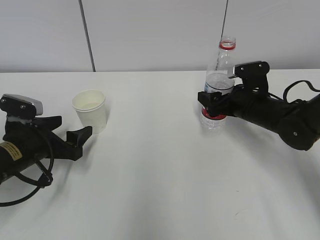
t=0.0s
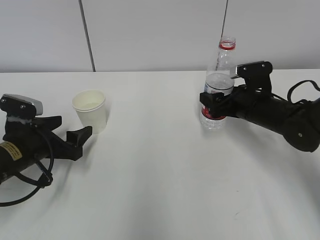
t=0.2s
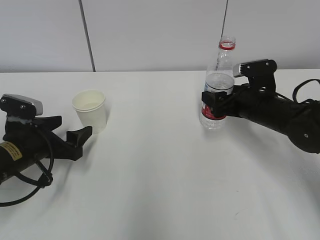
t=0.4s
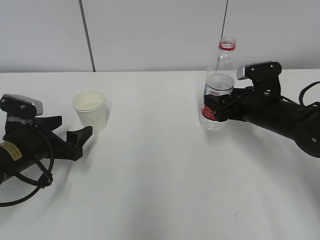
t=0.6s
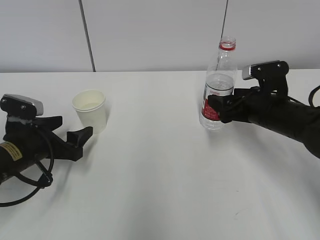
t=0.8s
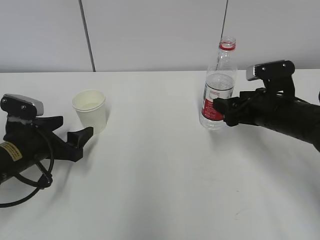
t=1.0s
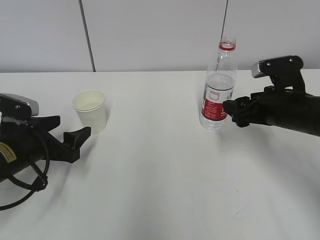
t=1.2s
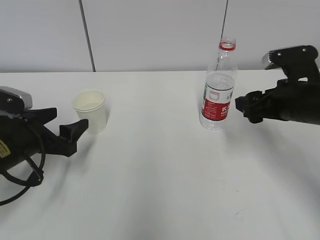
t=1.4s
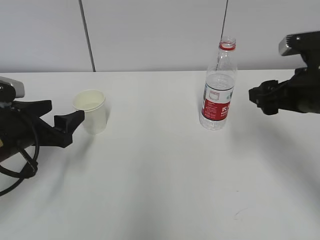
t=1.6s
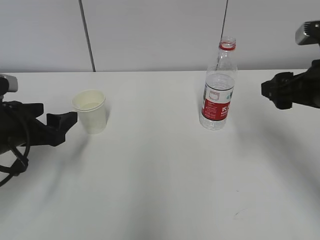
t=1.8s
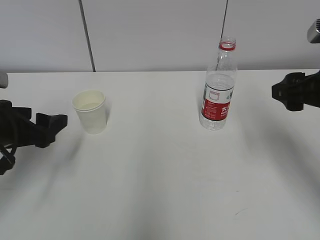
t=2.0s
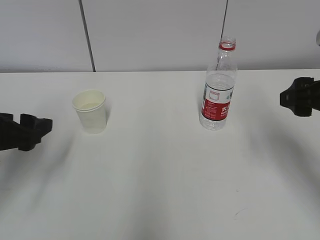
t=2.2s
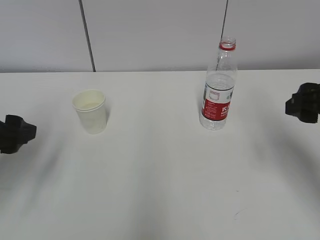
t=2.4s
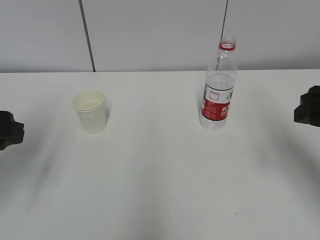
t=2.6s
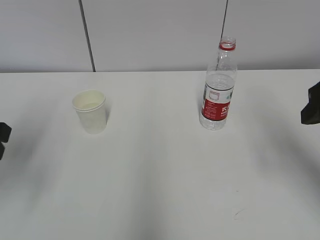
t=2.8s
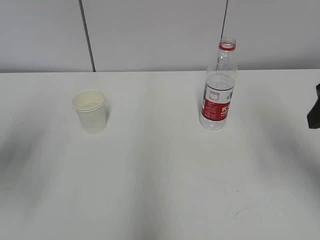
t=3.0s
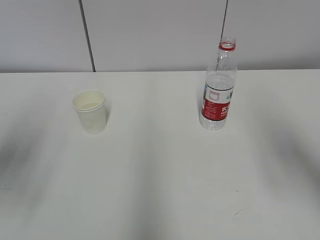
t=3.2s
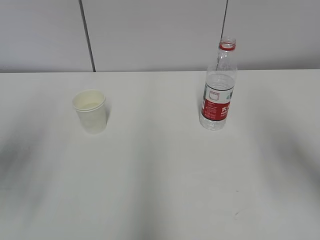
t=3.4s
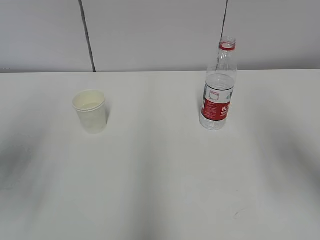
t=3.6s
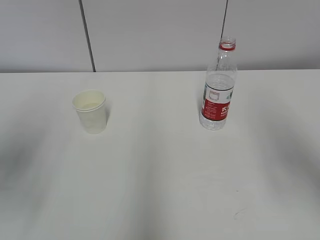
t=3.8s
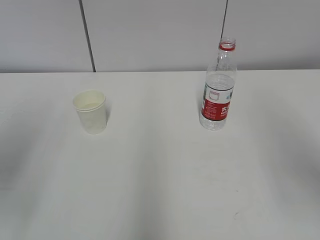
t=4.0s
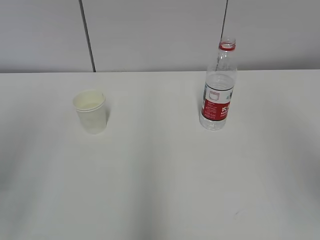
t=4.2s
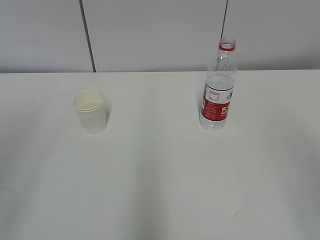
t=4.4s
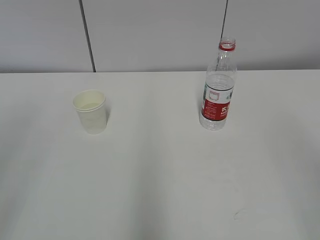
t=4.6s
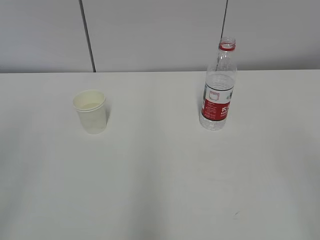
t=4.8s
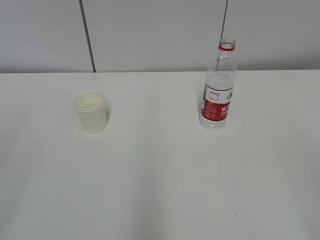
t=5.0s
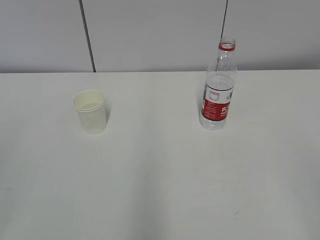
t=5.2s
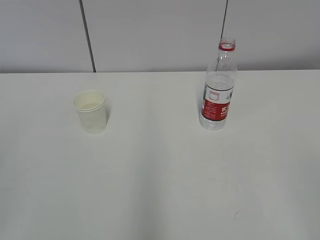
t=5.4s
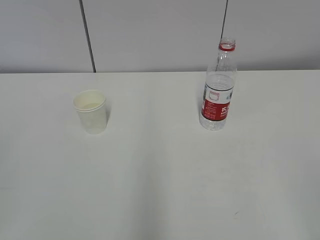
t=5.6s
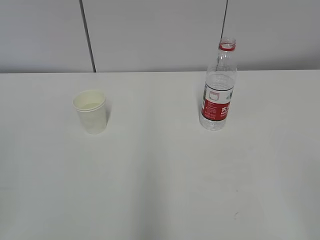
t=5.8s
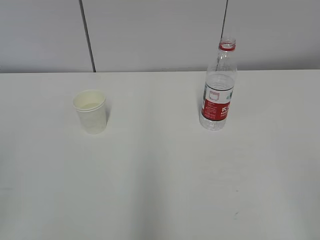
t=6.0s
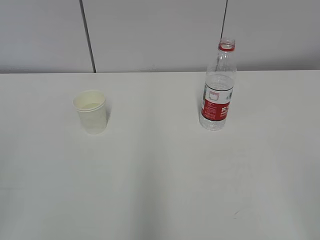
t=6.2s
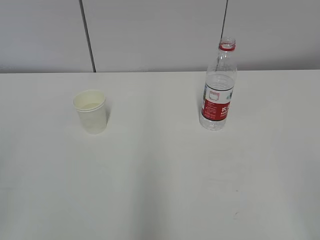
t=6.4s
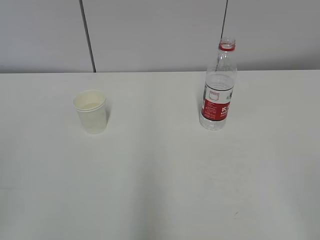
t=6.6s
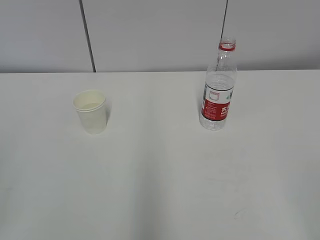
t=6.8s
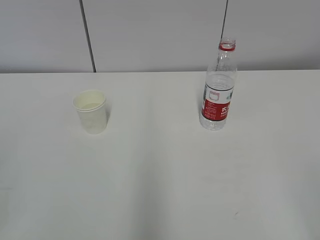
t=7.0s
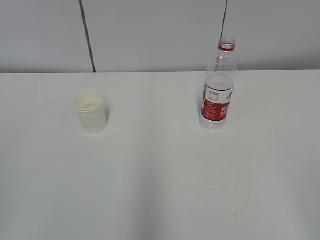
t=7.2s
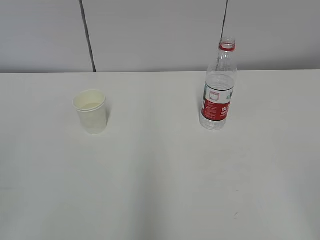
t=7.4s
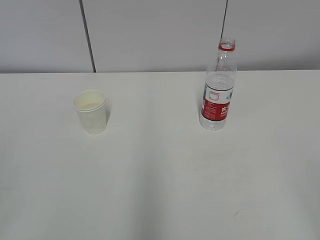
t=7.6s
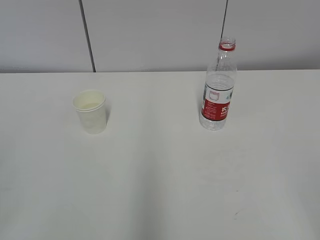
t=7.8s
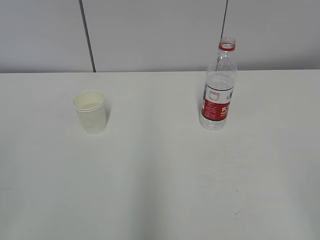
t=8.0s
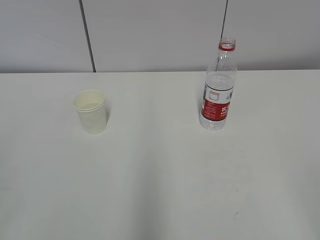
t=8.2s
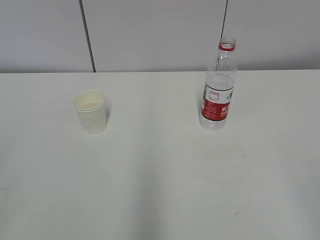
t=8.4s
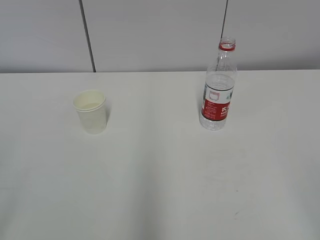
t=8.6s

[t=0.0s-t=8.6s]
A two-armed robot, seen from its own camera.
t=0.0s to t=1.4s: The right gripper is displaced backward and upward by roughly 10 cm.
t=1.4s to t=2.8s: The two grippers go approximately 15 cm upward and backward.
t=2.8s to t=4.4s: Both grippers travel together backward and upward, some 15 cm.

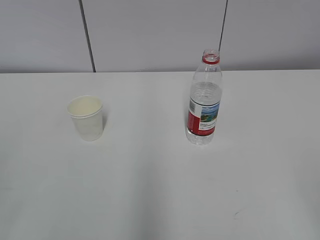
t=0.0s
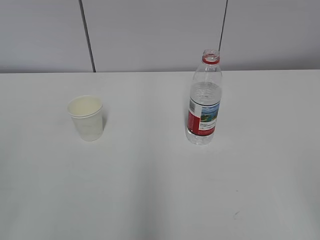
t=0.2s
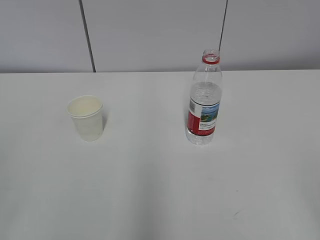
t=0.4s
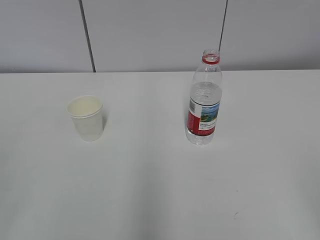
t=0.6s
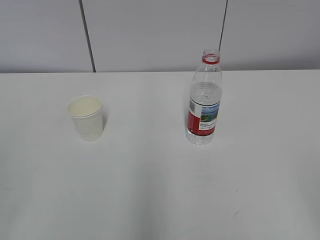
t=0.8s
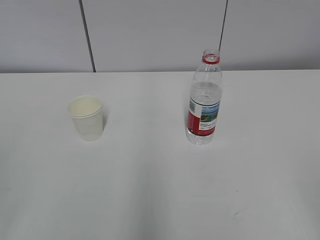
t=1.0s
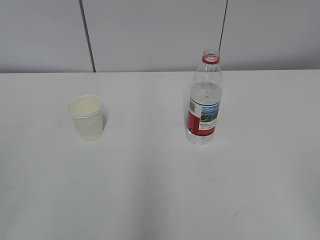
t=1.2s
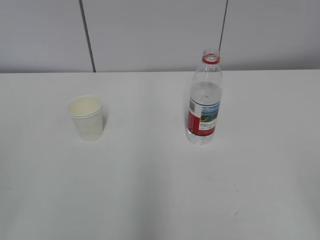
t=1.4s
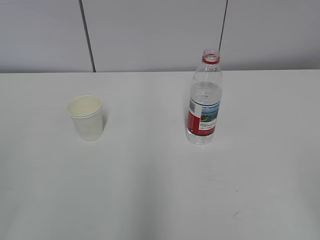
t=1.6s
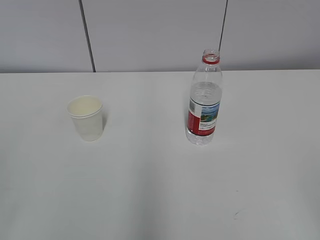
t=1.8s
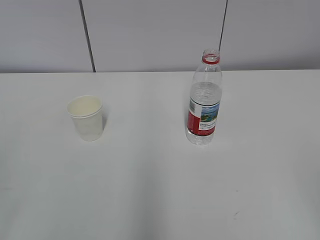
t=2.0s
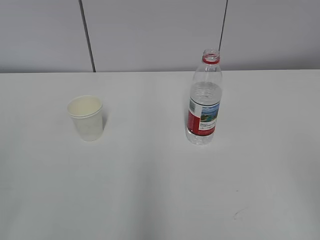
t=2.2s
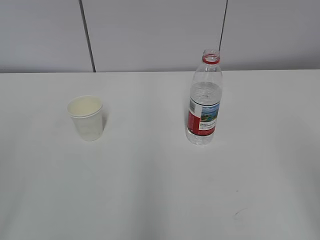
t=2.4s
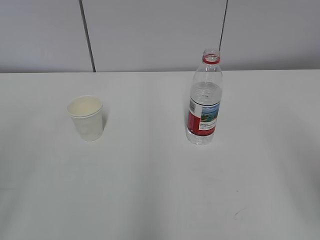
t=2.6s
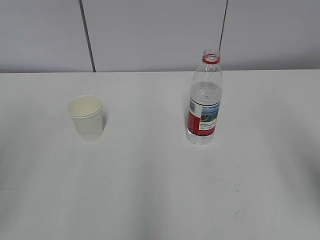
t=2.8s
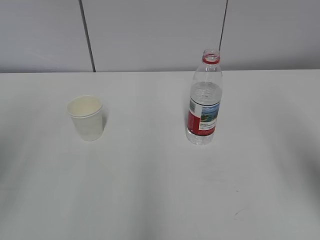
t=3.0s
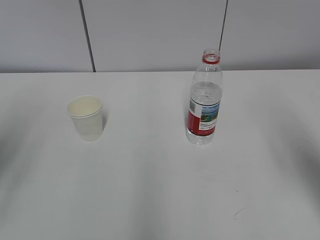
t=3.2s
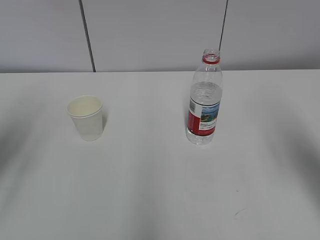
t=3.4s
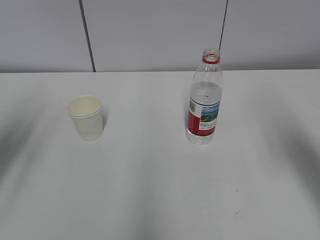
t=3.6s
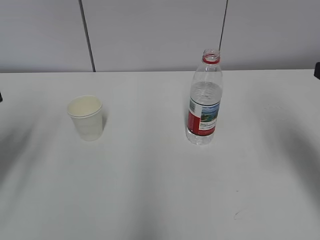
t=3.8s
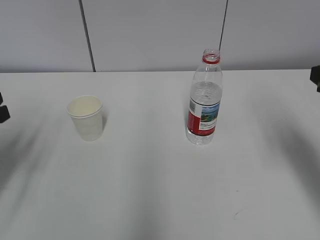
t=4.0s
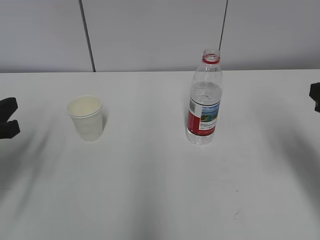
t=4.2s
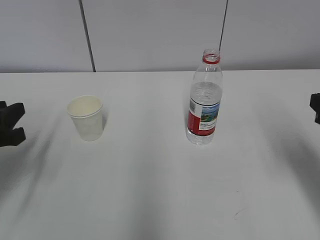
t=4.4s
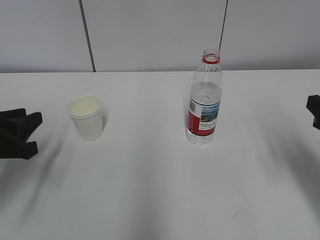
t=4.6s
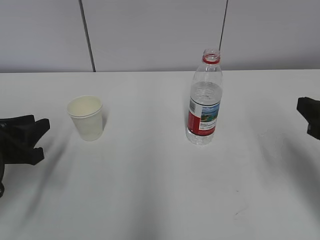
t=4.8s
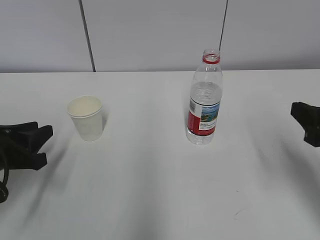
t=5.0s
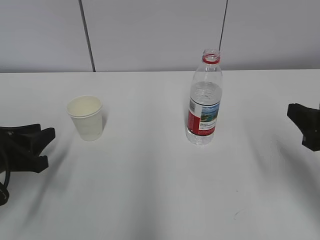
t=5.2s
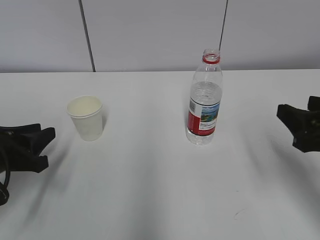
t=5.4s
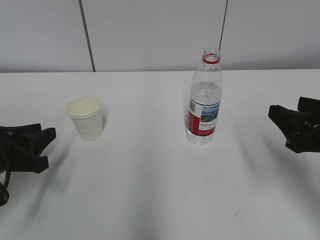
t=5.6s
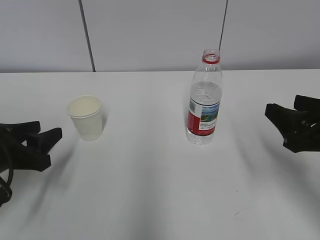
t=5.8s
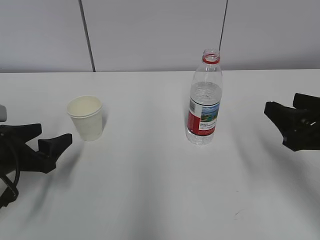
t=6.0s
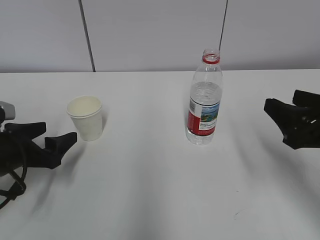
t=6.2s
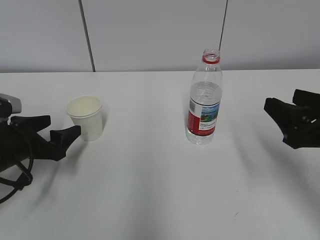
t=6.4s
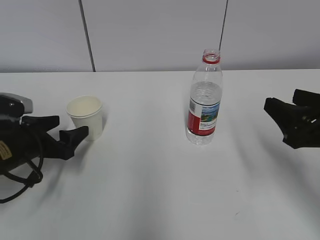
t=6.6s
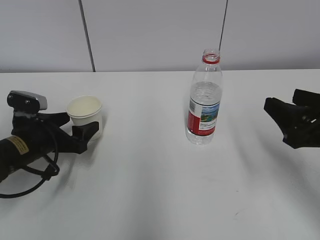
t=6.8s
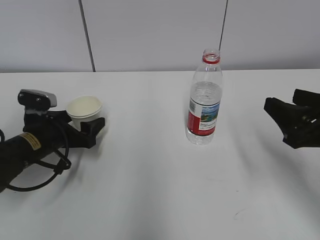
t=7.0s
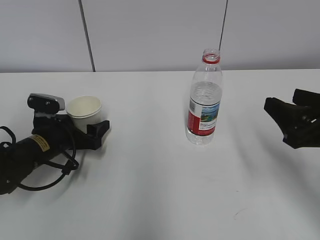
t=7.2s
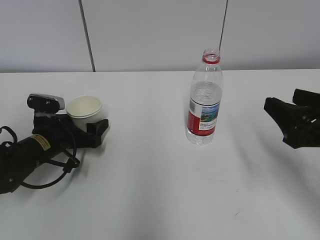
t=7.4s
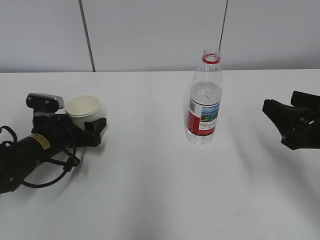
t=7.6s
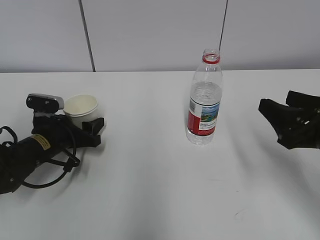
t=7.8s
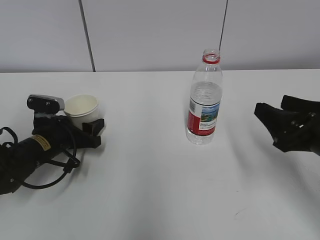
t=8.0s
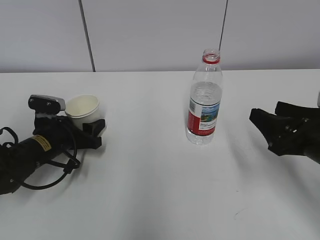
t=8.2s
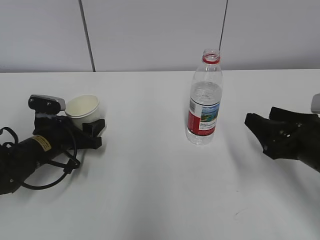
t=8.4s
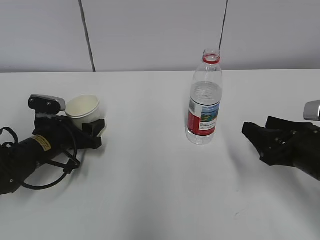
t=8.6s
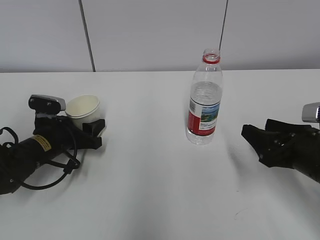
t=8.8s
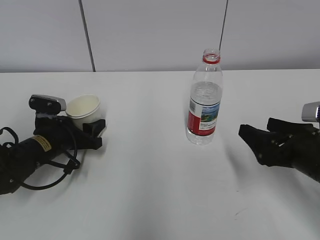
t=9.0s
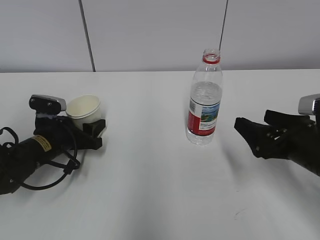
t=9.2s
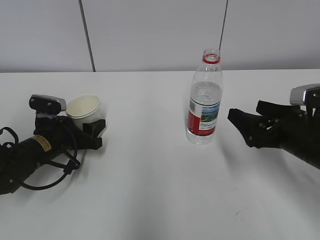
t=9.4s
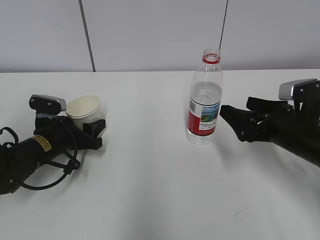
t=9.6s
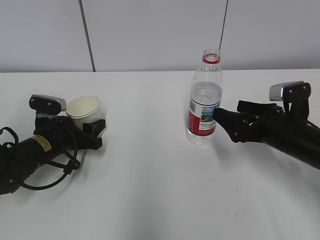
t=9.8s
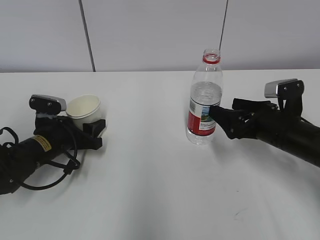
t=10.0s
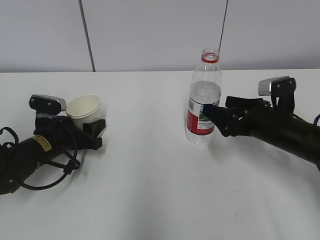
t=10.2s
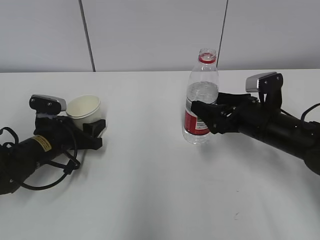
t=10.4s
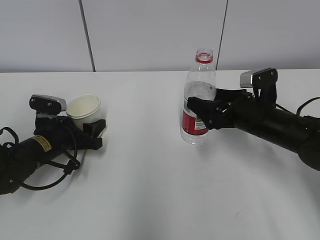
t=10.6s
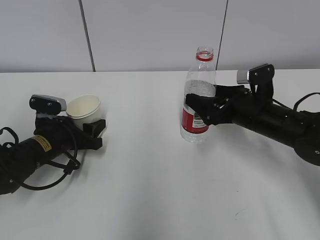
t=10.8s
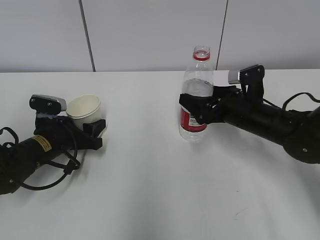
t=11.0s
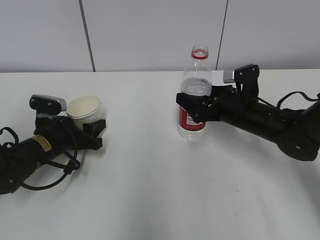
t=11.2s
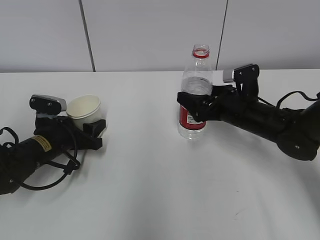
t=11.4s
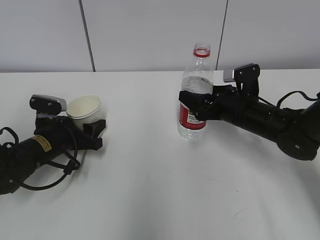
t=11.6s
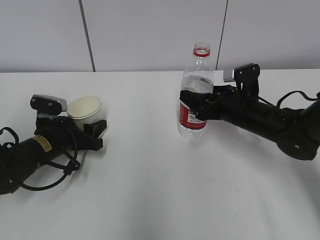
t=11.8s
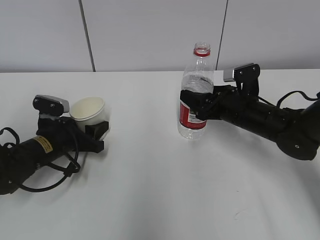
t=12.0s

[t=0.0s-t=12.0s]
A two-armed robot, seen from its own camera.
Step, t=0.0s to t=10.4s: Grab the water bottle with the right hand.
t=1.6s to t=3.0s: The right gripper goes about 15 cm forward.
t=3.0s to t=4.4s: Both grippers move downward and forward, roughly 15 cm.
t=4.4s to t=6.0s: The left gripper goes approximately 5 cm downward, and opens up.
t=6.0s to t=7.6s: The left gripper is displaced forward and downward by roughly 10 cm.
t=7.6s to t=9.0s: The left gripper closes up; the right gripper moves downward, some 5 cm, and opens its fingers.
t=9.0s to t=10.4s: The right gripper heads forward, covering about 10 cm, and opens its fingers.
t=10.4s to t=12.0s: The right gripper closes.

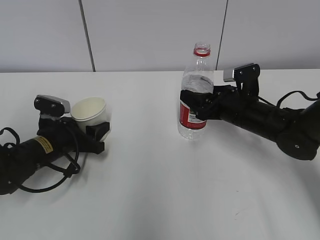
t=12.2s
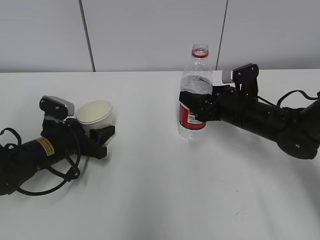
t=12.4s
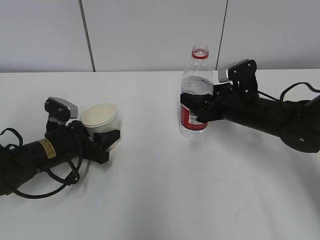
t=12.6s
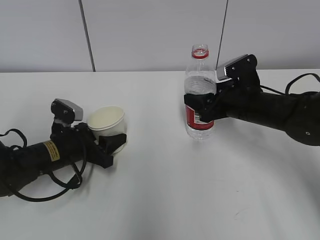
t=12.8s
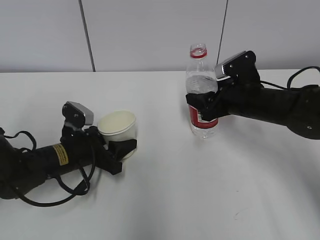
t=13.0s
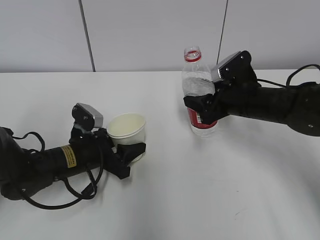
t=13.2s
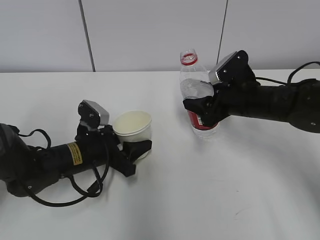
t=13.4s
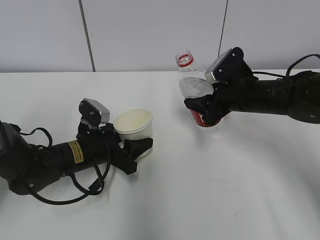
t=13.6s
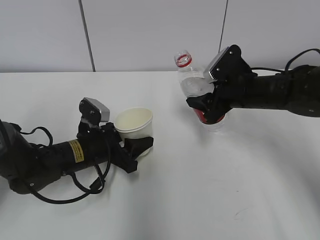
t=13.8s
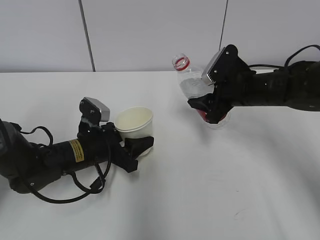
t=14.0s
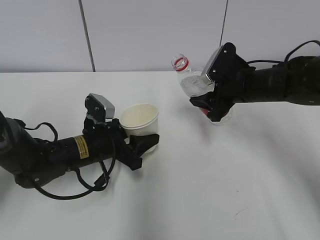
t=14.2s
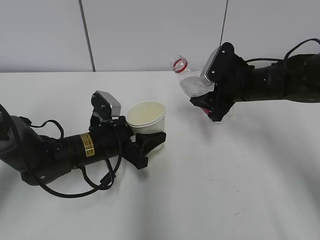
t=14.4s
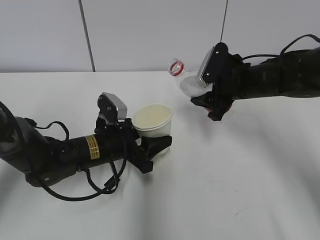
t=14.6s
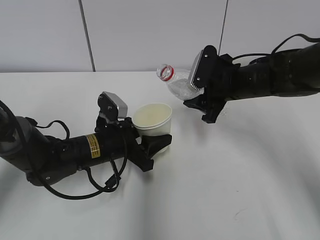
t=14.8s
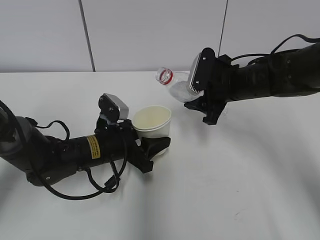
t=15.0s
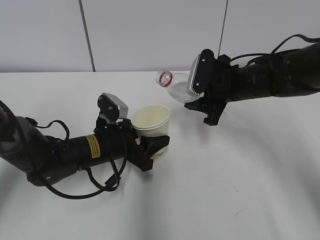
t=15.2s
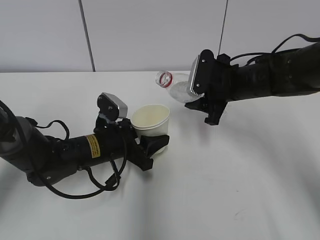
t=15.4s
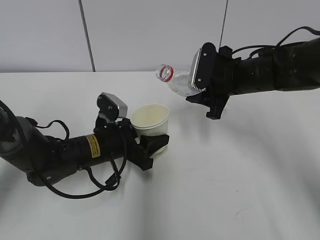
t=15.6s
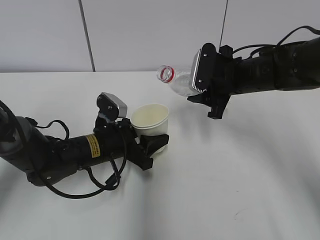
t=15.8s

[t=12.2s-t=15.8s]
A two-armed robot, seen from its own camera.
Step, t=12.2s to t=15.0s: Lift the paper cup with the left hand.
t=12.2s to t=14.0s: The left gripper shifts some 5 cm to the right.
